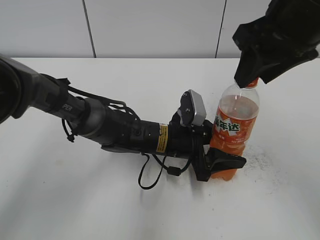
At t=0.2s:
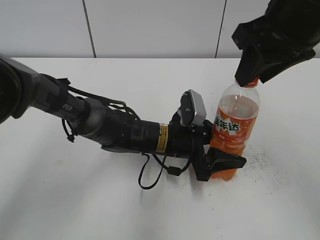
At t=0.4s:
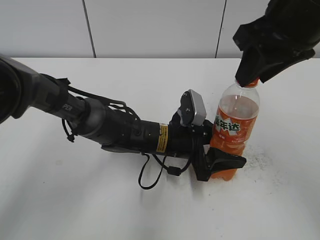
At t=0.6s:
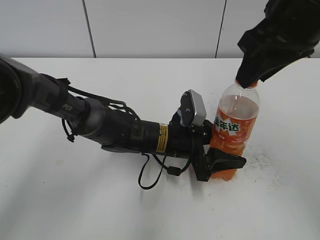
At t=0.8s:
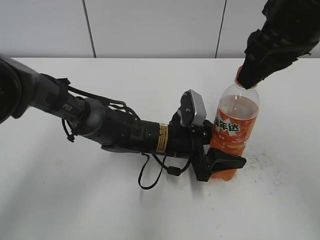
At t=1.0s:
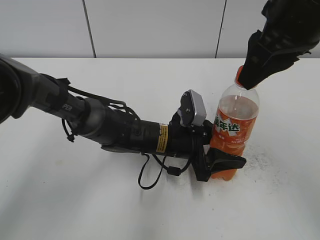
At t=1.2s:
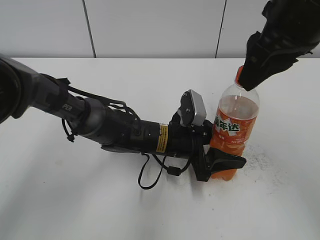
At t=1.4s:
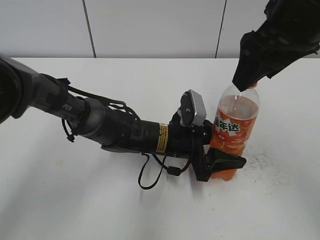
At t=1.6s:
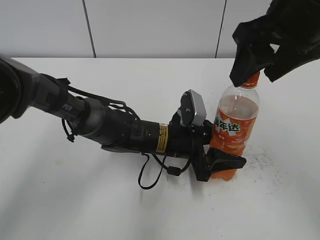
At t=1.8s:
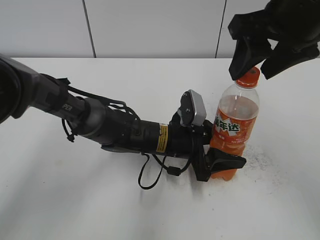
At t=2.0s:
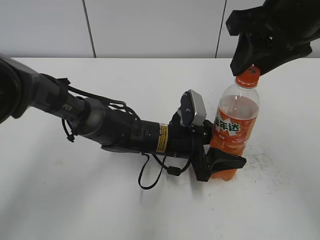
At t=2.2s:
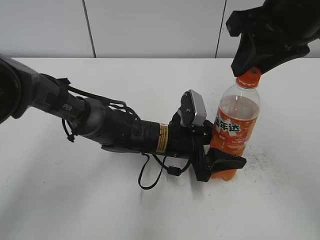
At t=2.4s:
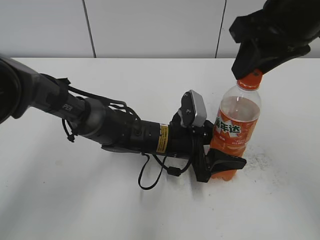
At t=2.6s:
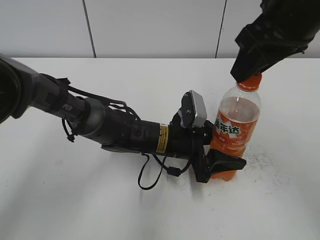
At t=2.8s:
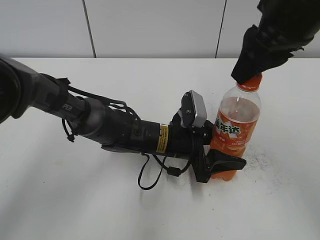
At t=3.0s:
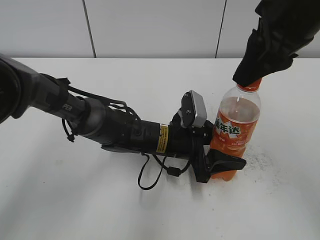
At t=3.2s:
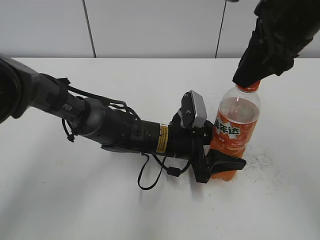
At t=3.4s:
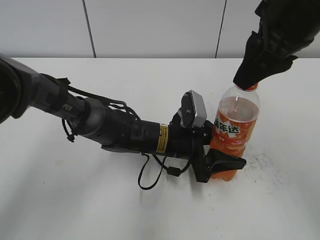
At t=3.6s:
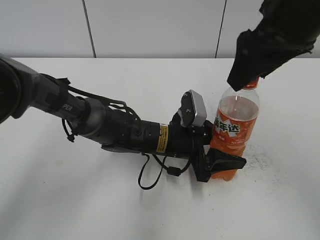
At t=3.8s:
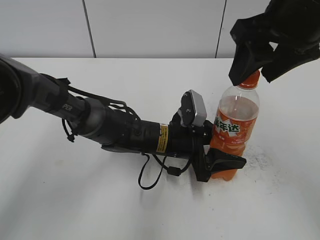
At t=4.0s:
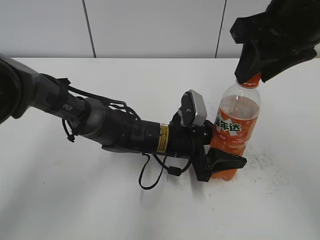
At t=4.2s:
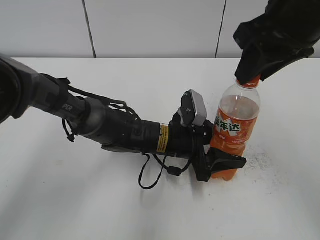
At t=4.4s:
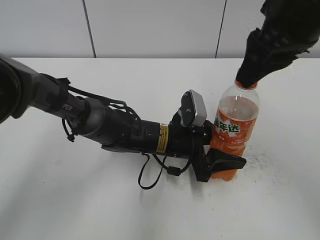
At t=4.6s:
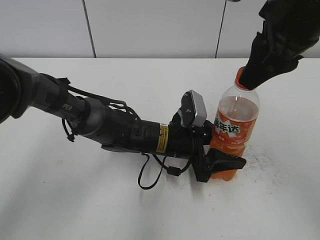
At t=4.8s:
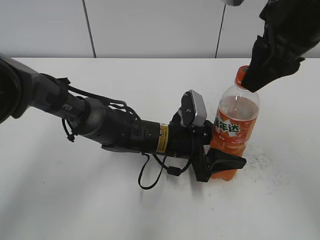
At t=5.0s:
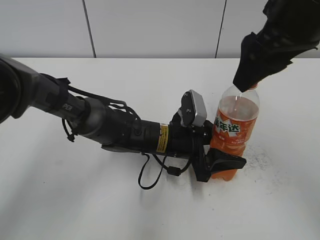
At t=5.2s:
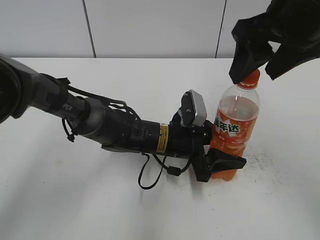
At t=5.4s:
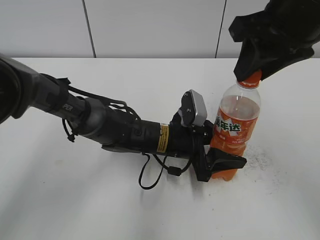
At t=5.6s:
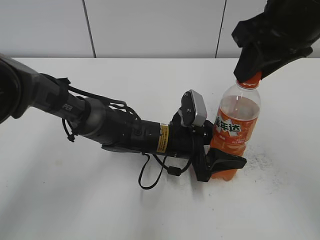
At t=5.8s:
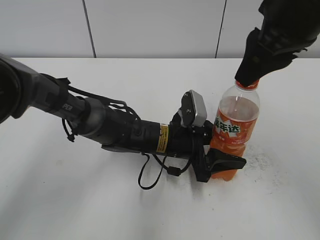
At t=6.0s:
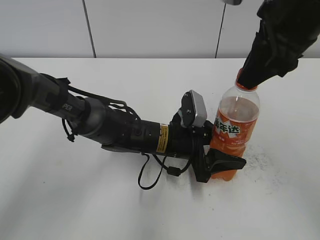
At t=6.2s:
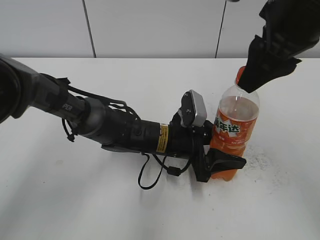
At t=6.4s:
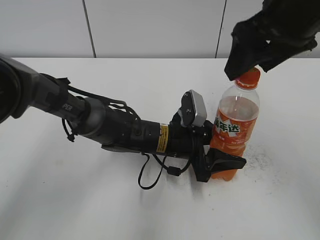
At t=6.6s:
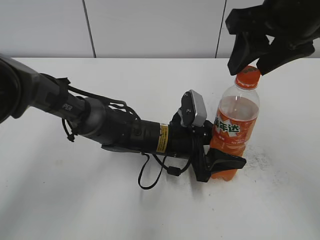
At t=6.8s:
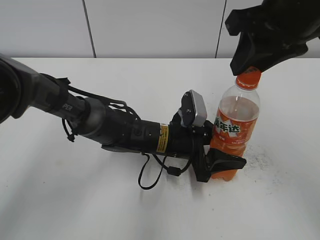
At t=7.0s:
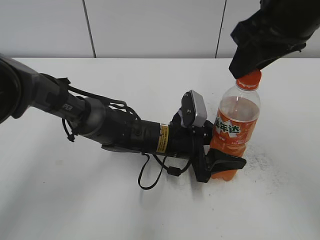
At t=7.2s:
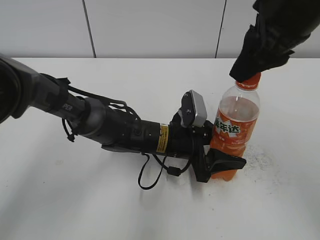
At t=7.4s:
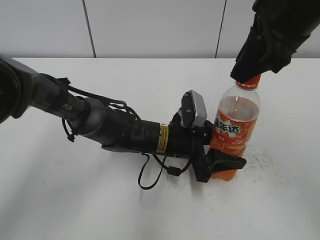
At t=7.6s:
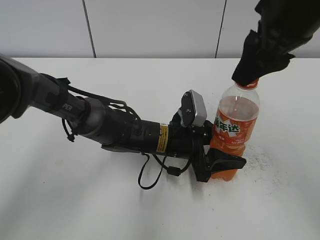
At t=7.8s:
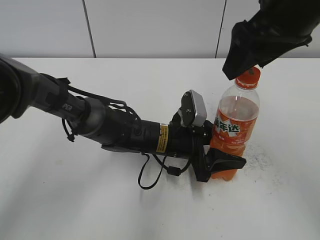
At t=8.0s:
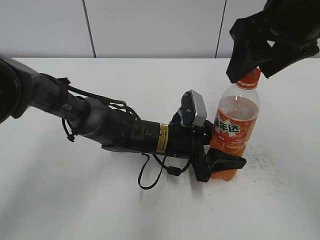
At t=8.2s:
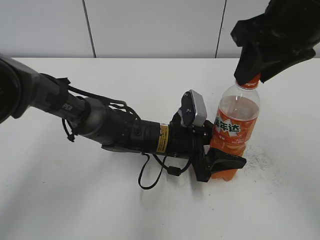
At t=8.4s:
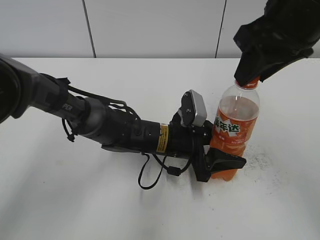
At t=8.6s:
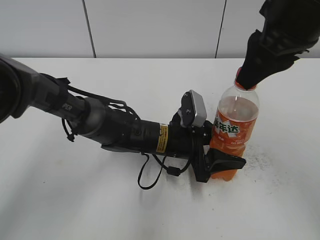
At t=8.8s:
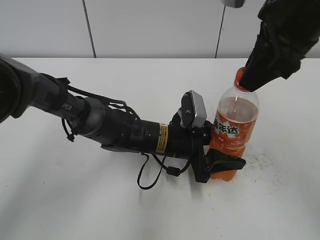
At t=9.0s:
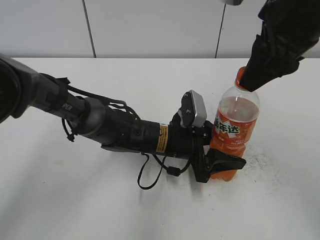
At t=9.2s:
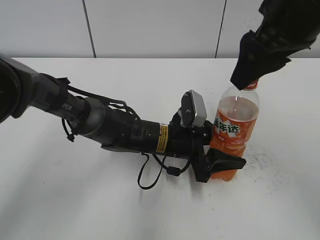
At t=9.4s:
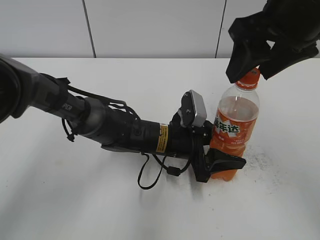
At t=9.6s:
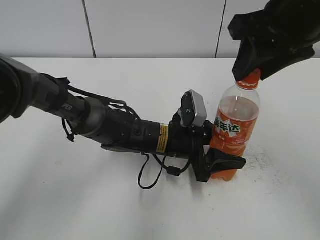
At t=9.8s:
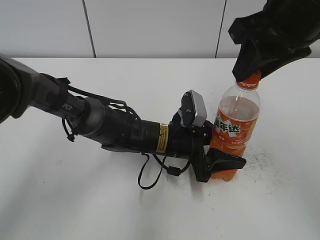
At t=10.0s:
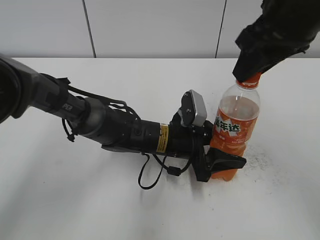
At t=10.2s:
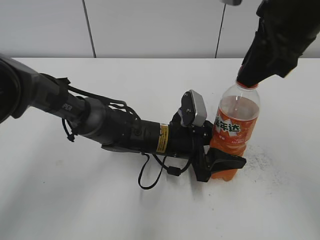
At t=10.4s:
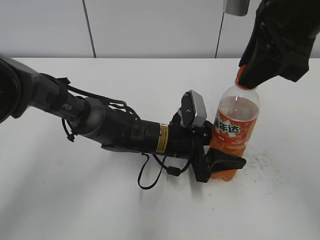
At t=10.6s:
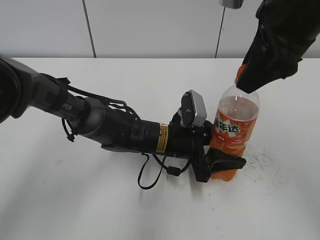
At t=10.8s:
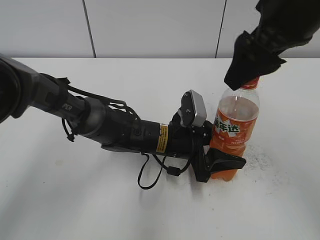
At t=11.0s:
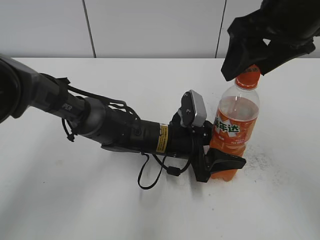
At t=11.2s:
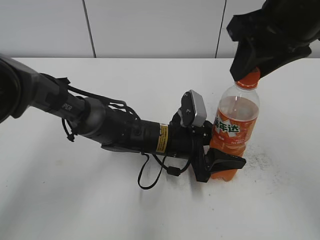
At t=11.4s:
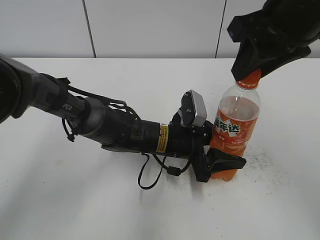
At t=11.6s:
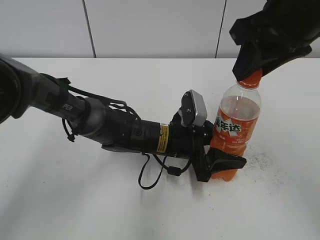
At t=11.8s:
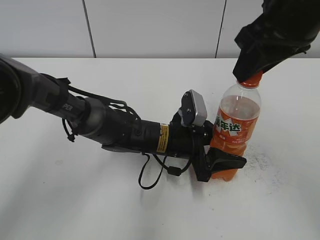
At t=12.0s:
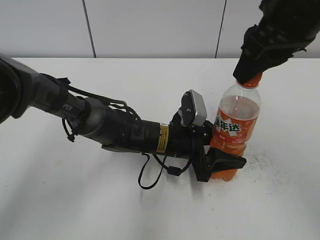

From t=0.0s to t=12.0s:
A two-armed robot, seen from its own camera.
From t=0.0s to t=1.6s: The right gripper opens.
From t=1.6s to t=3.0s: The right gripper closes.
From t=3.0s to t=4.4s: The right gripper opens and closes again.
From t=4.4s to t=6.0s: The right gripper opens and closes again.
From t=6.0s to t=7.6s: The right gripper opens up.
From t=7.6s to t=9.0s: The right gripper opens and closes again.
From t=9.0s to t=10.4s: The right gripper opens, then closes again.
From t=10.4s to t=12.0s: The right gripper opens and closes again.

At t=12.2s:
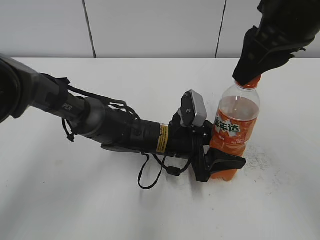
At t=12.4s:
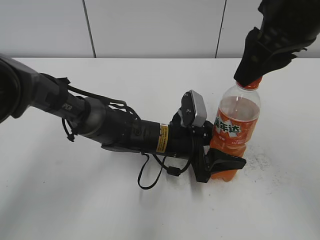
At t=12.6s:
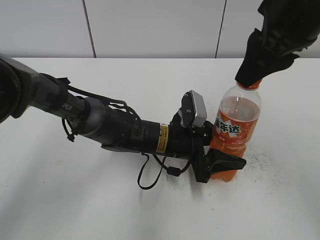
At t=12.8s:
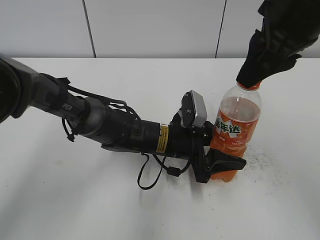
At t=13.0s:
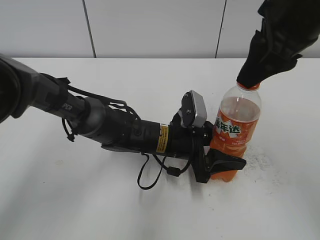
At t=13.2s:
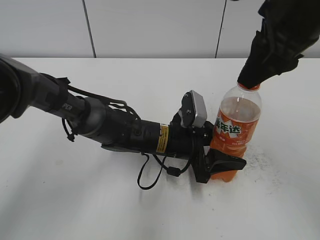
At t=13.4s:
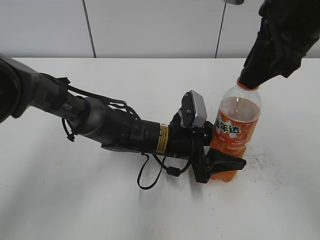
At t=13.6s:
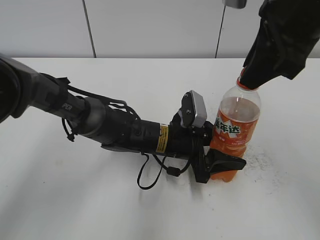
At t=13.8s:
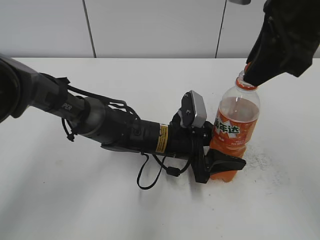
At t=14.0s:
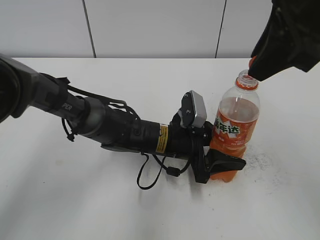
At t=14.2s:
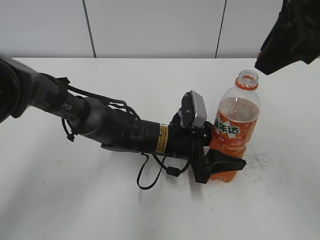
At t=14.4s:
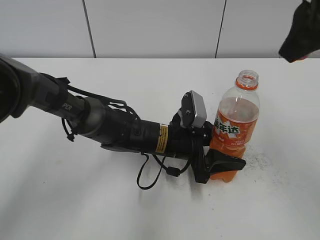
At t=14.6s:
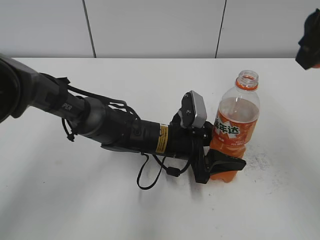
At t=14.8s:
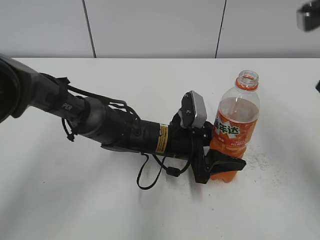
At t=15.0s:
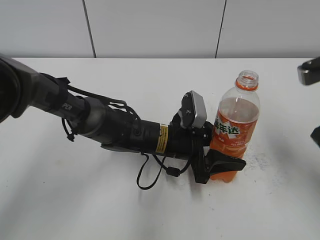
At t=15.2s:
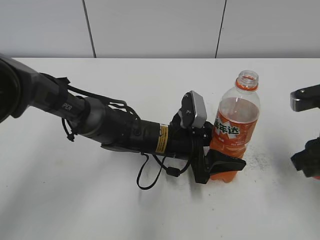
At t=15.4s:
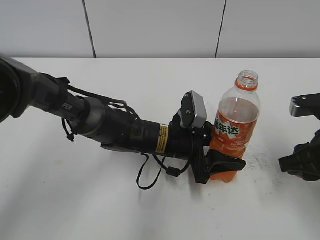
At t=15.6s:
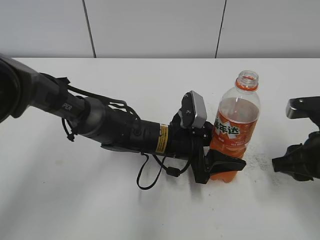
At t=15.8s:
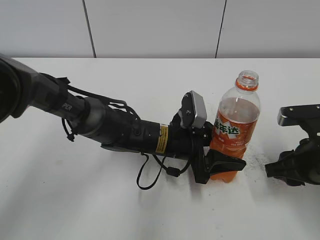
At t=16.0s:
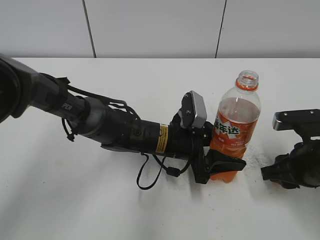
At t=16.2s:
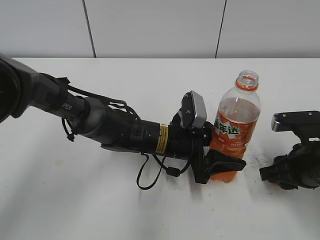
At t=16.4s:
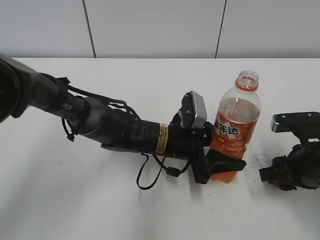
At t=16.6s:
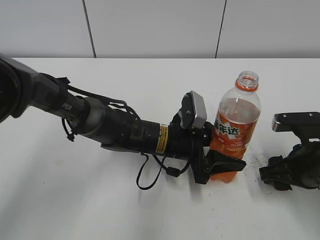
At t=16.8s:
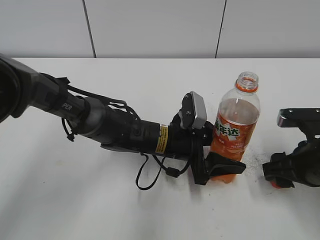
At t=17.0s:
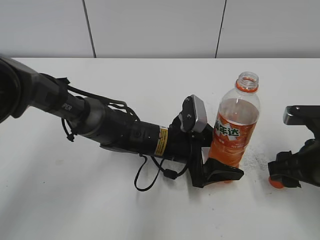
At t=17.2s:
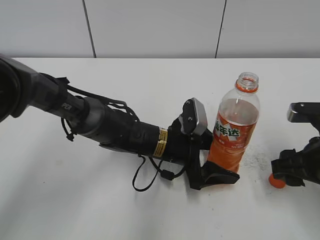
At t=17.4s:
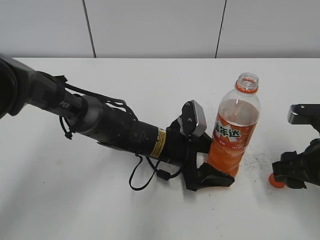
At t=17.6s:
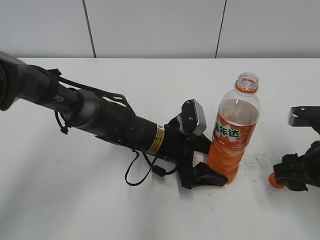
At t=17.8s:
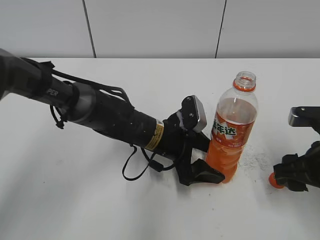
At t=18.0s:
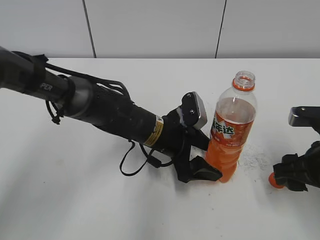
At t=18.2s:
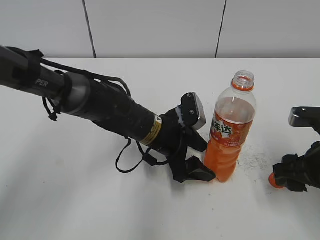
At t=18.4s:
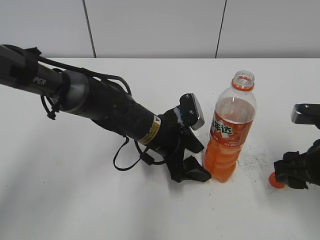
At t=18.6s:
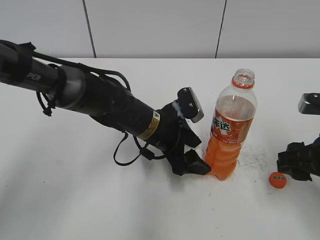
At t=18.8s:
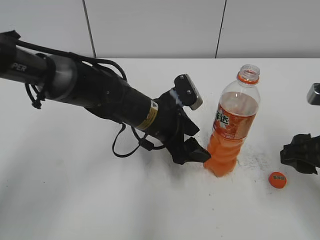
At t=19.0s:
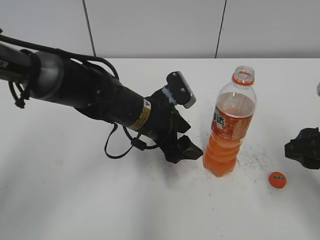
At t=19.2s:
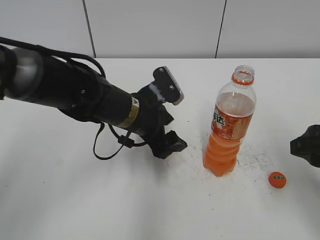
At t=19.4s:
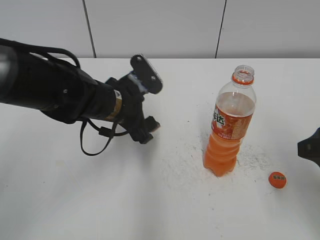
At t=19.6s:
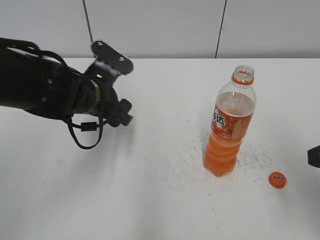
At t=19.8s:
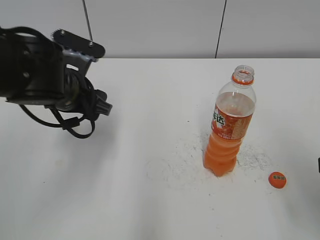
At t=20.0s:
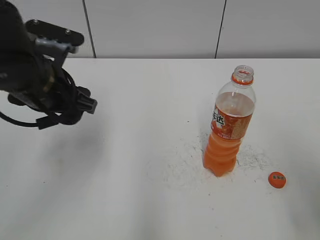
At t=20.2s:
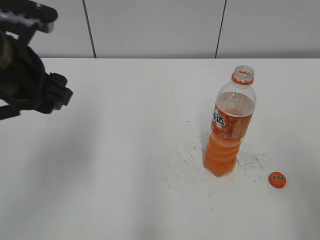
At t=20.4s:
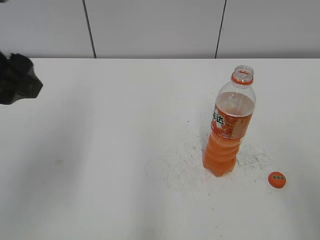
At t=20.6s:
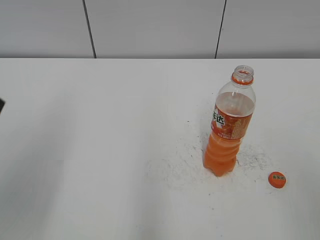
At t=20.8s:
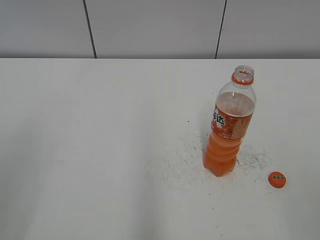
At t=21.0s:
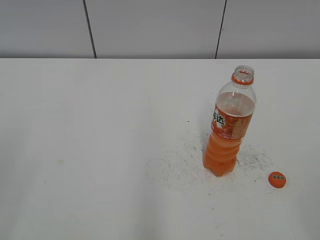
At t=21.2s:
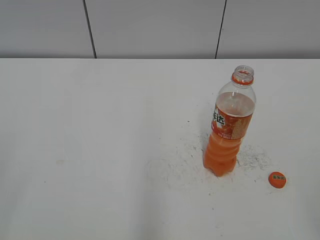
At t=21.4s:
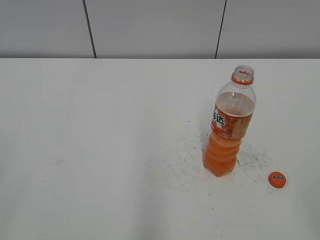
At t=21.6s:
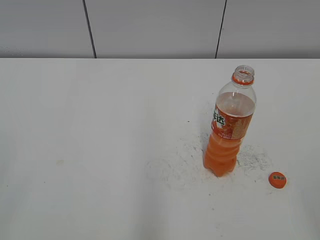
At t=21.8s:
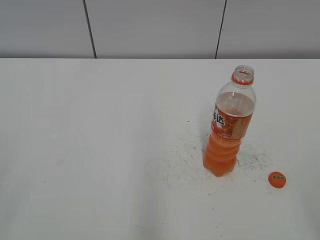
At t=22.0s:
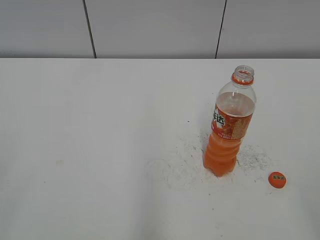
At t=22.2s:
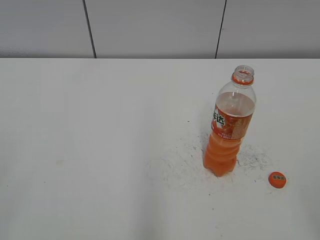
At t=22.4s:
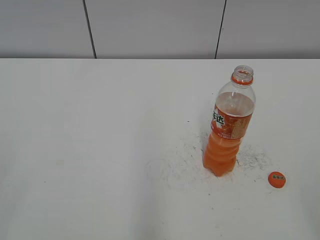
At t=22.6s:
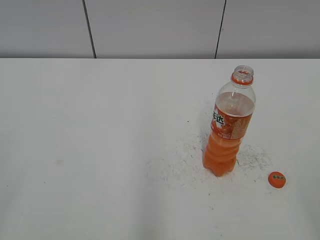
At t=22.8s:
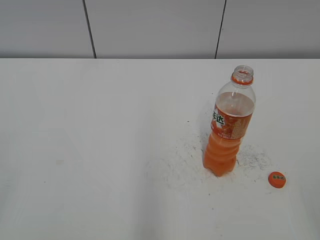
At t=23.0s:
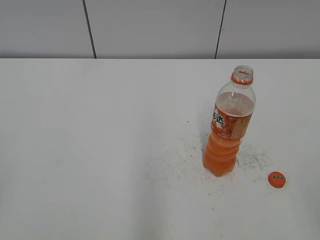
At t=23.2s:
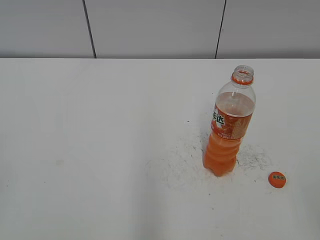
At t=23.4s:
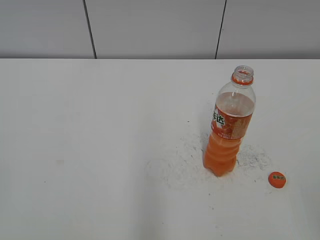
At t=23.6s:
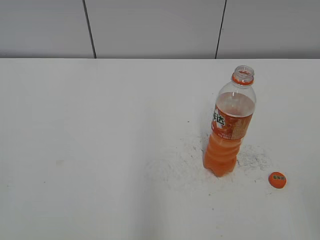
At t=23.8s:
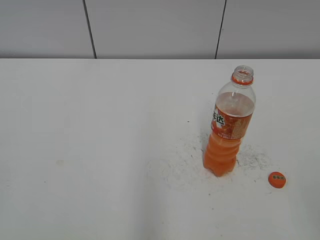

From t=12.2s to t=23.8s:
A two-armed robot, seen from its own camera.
Step, from t=14.0s to t=16.4s: Place the bottle cap on the table with the right hand.
Step, from t=16.6s to t=17.2s: Place the Mirinda with the left hand.
From t=13.6s to t=15.0s: The right gripper is displaced to the right and downward by some 10 cm.
From t=15.0s to t=16.6s: The right gripper heads downward, covering approximately 15 cm, and opens.
From t=16.6s to t=18.0s: The left gripper opens its fingers.
From t=18.0s to t=19.4s: The right gripper shifts some 5 cm upward; the left gripper heads to the left and upward, covering about 10 cm.
From t=19.4s to t=21.0s: The left gripper heads backward, to the left and upward, covering roughly 40 cm; the right gripper shifts some 20 cm backward.
